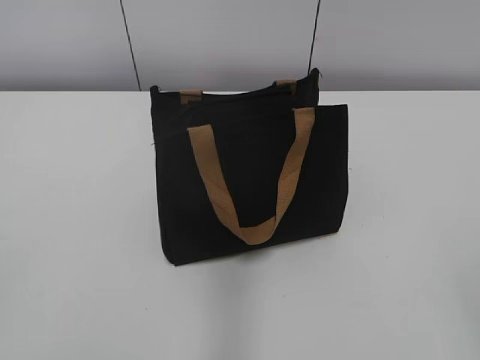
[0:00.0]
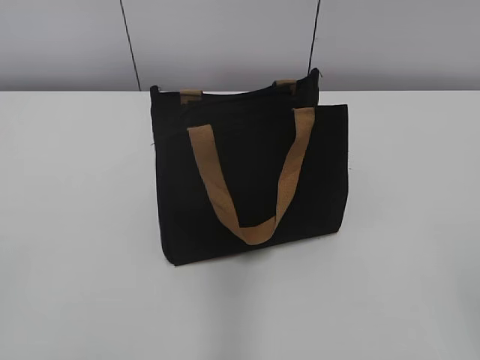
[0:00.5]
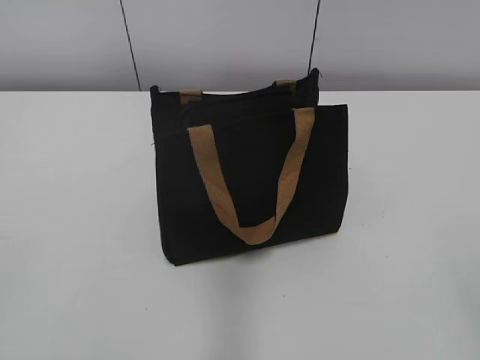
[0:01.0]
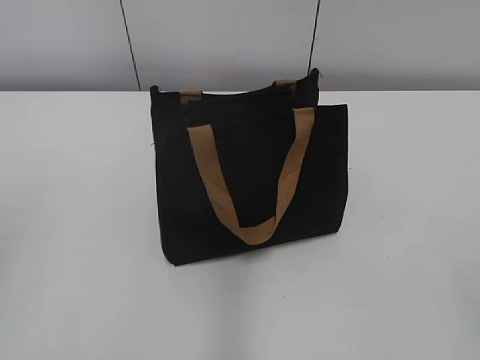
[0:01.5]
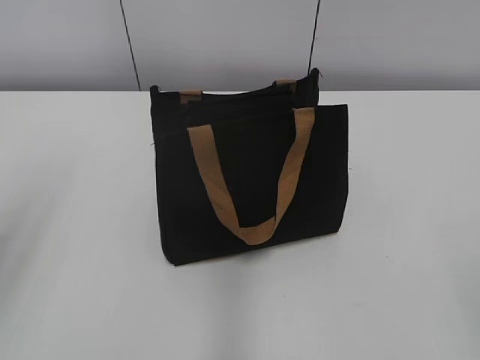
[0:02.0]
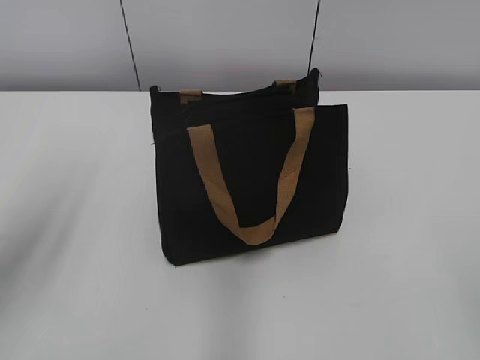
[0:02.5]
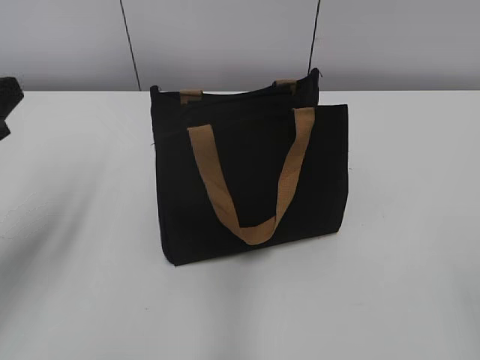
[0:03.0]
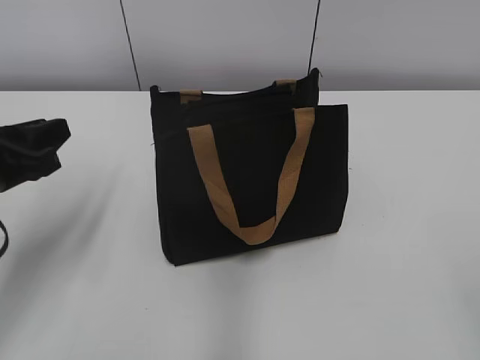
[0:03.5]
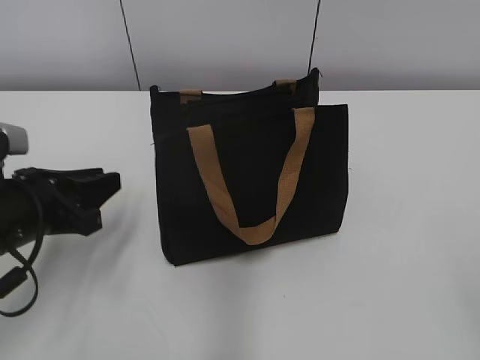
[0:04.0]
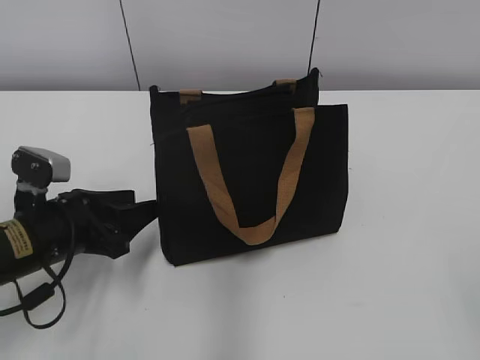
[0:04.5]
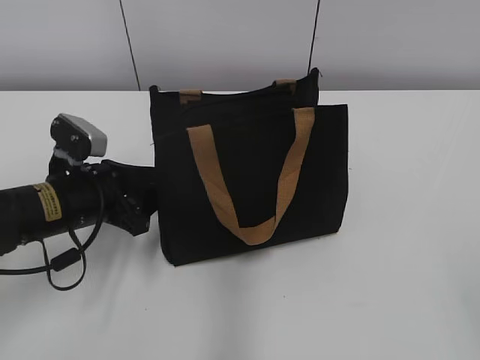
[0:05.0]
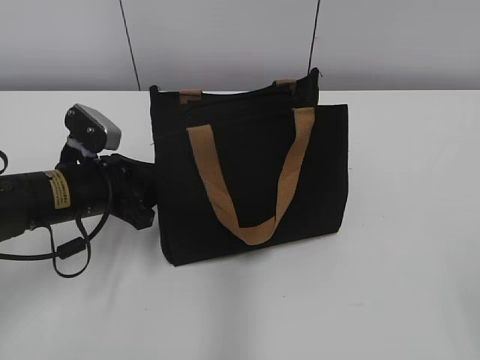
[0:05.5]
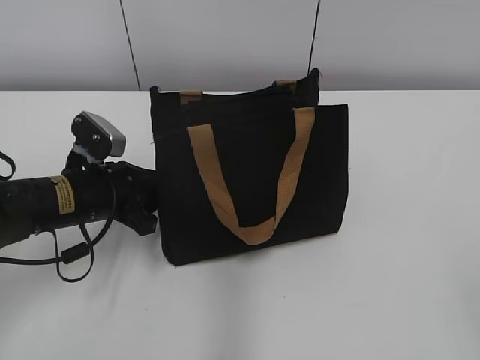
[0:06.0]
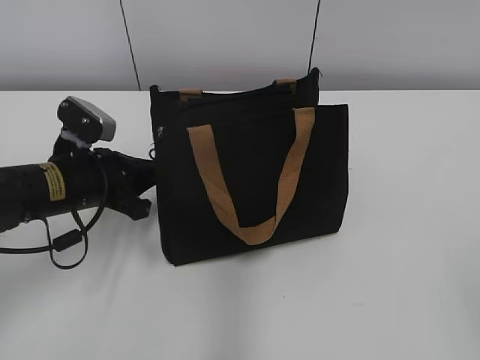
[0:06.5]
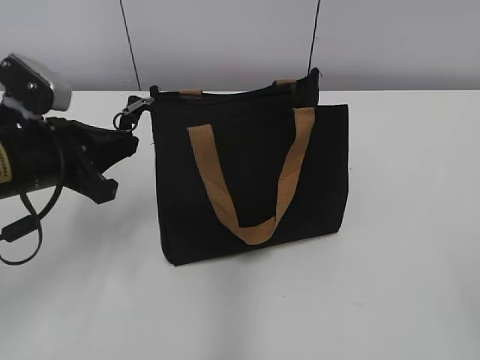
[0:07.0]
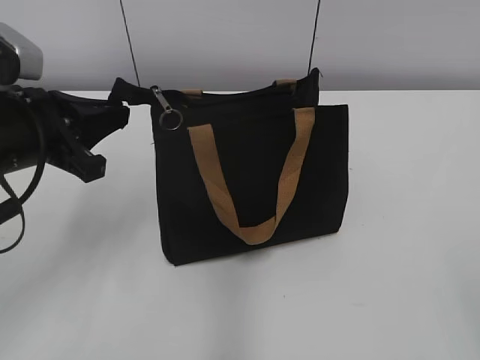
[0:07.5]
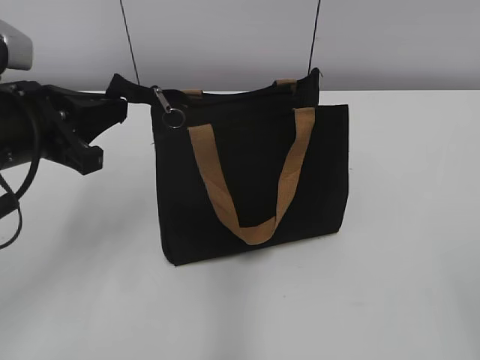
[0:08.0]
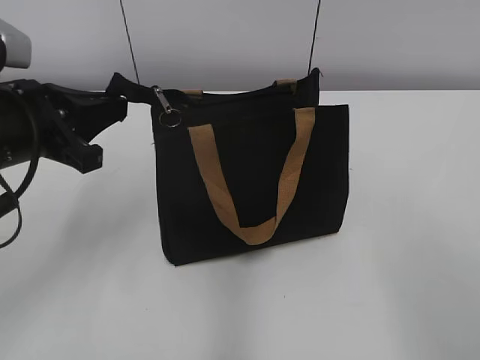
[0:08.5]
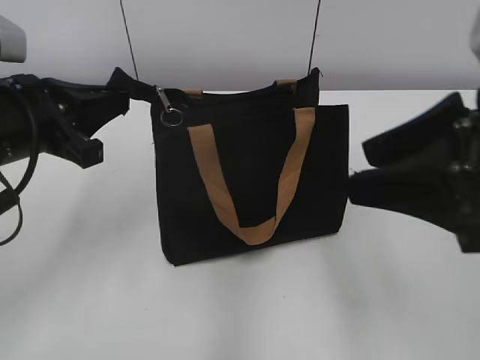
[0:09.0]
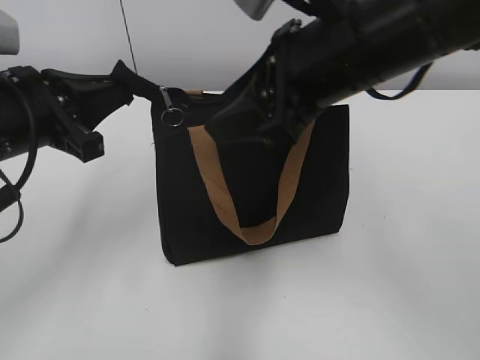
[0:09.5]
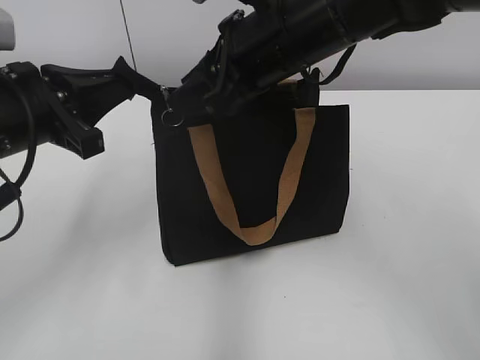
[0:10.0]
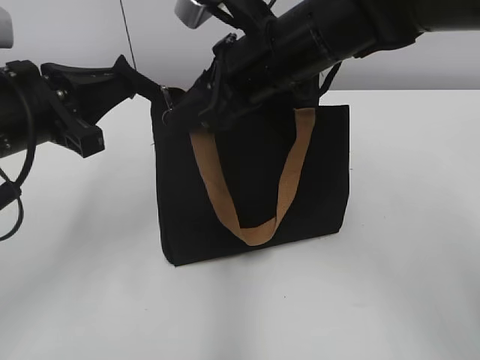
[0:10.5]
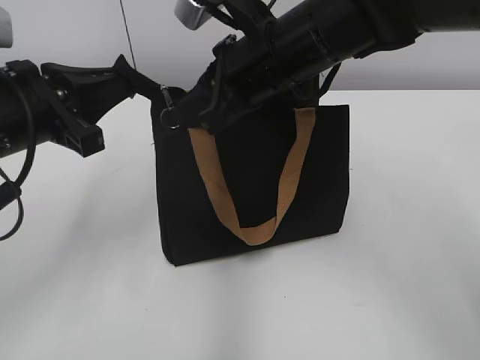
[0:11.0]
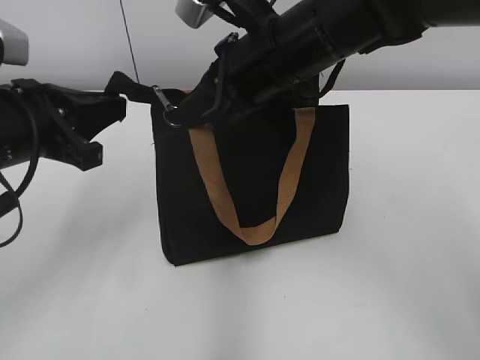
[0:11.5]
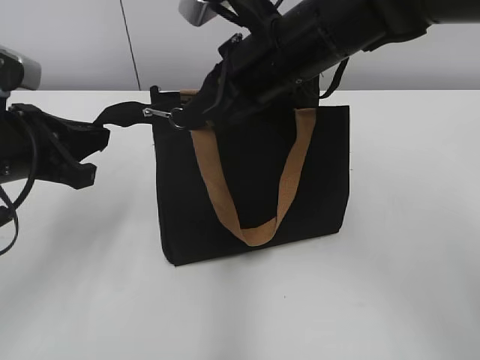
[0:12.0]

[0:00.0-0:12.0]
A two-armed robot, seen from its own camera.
0:02.0 to 0:04.0: The left gripper travels downward and forward by approximately 20 cm.
0:04.0 to 0:06.0: The left gripper travels forward by some 5 cm.
0:06.0 to 0:08.0: The left gripper goes roughly 10 cm upward, and closes its fingers.
0:08.0 to 0:10.0: The right gripper goes about 40 cm forward and to the left.
0:10.0 to 0:12.0: The right gripper closes its fingers.

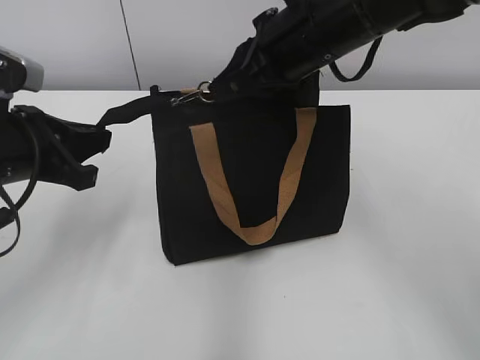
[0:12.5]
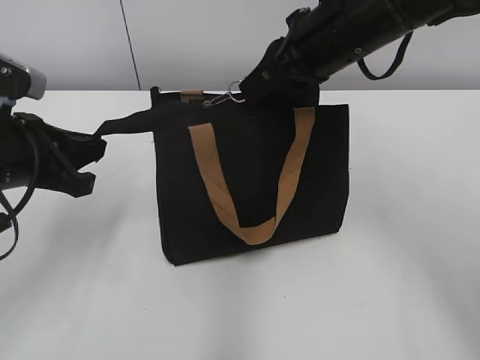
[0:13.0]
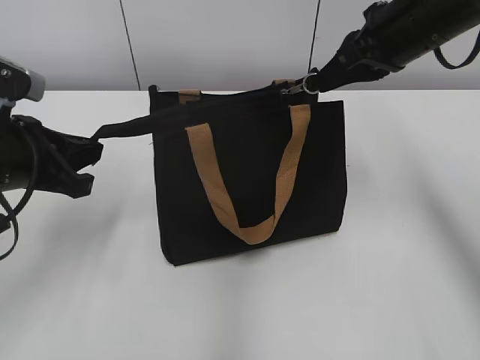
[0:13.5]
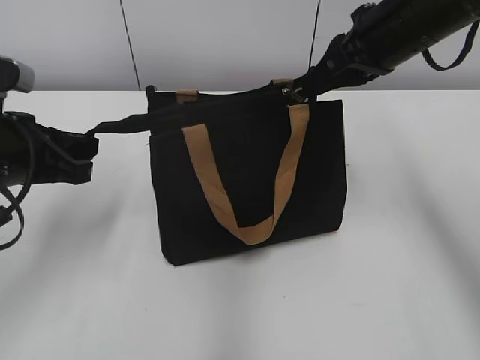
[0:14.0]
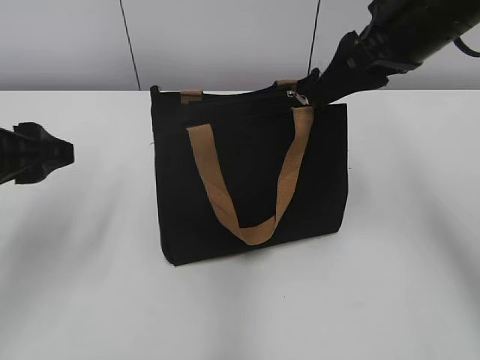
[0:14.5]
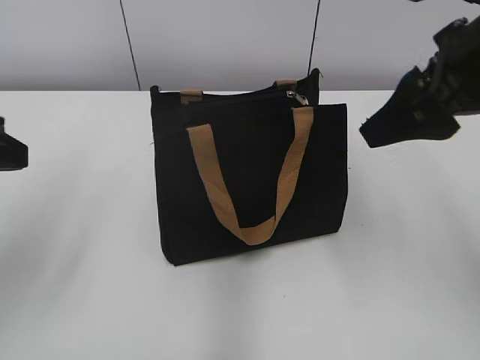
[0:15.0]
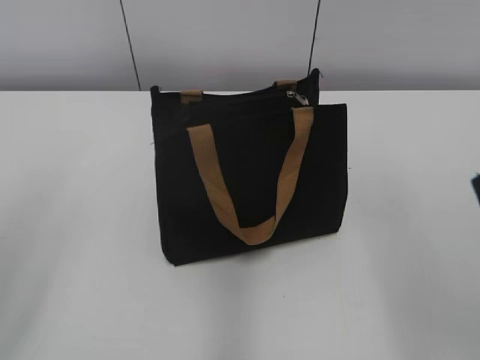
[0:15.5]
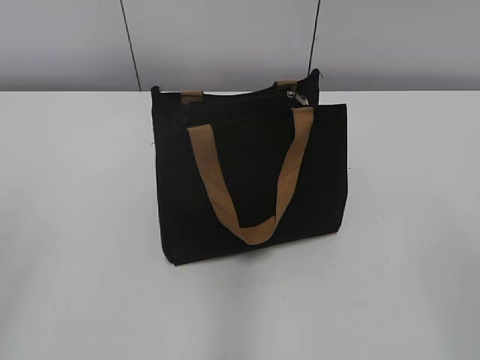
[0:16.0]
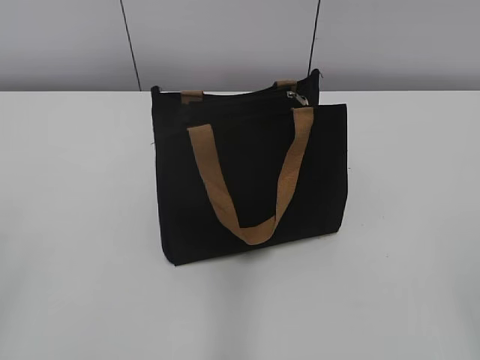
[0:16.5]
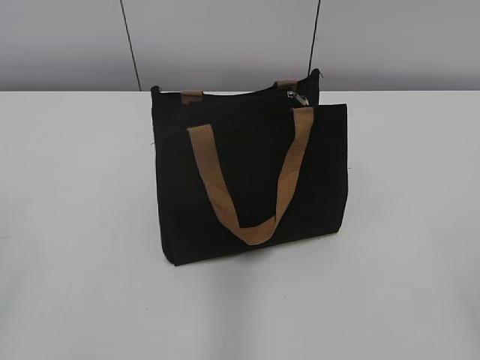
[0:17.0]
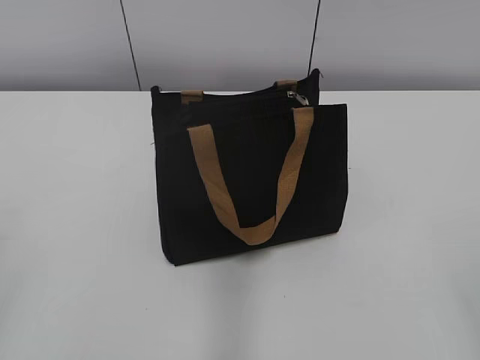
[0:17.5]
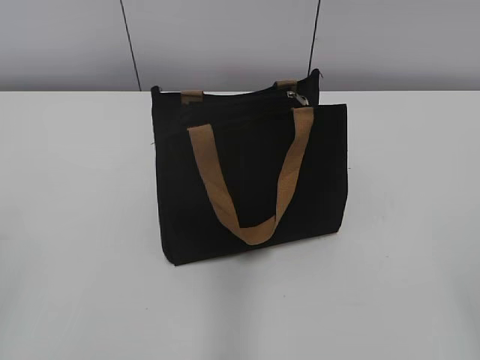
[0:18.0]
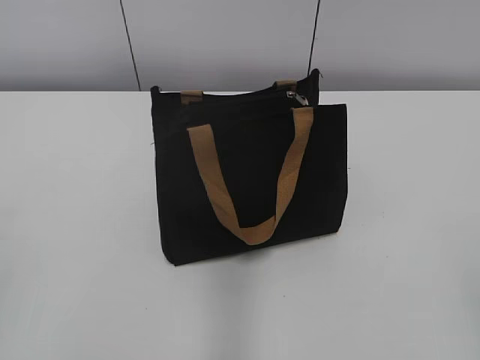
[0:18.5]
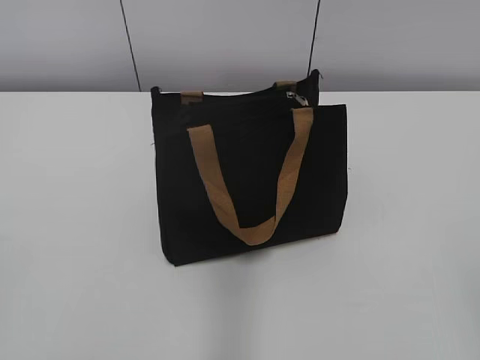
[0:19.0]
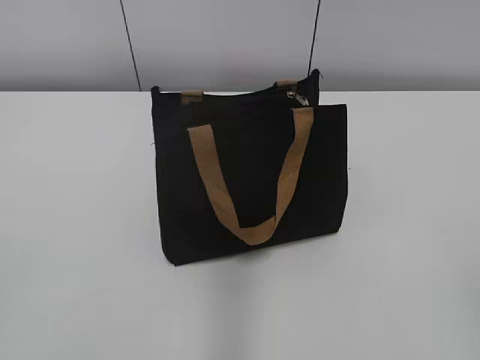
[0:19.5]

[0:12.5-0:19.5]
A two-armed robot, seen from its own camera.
0:12.5 to 0:14.5: The right gripper goes approximately 10 cm to the right, and opens; the left gripper opens up.
0:14.5 to 0:16.0: The right gripper goes roughly 30 cm backward. Meanwhile the left gripper travels backward and upward by approximately 20 cm.
